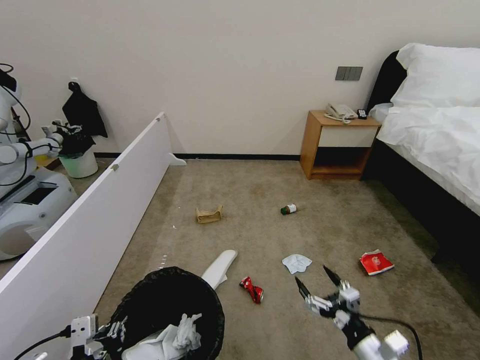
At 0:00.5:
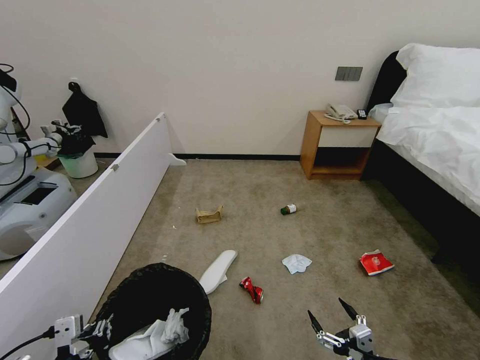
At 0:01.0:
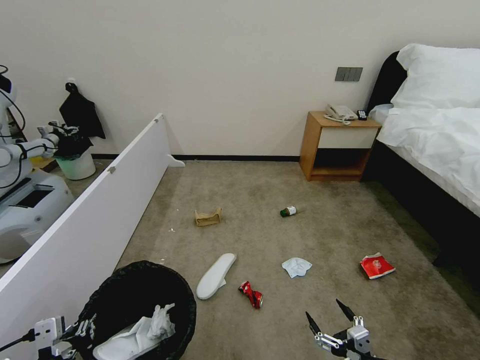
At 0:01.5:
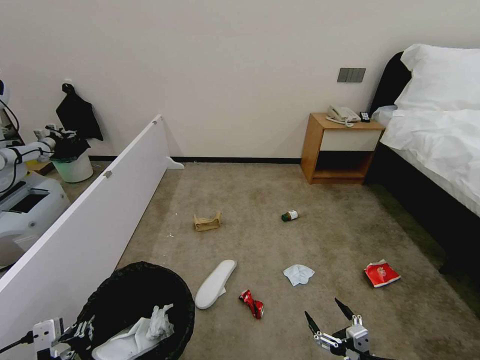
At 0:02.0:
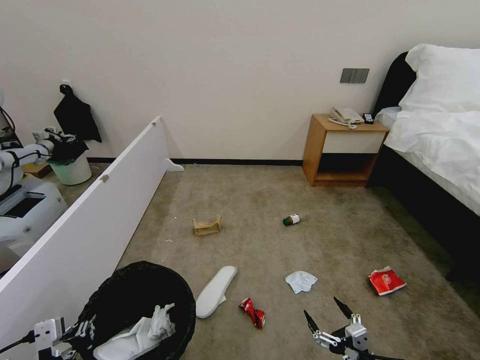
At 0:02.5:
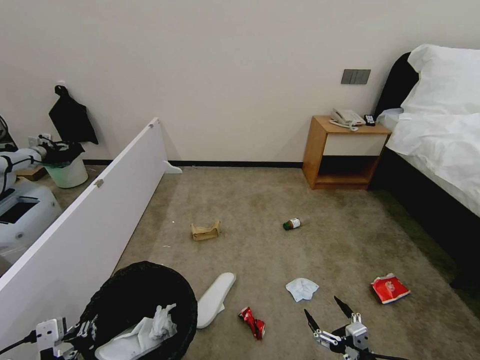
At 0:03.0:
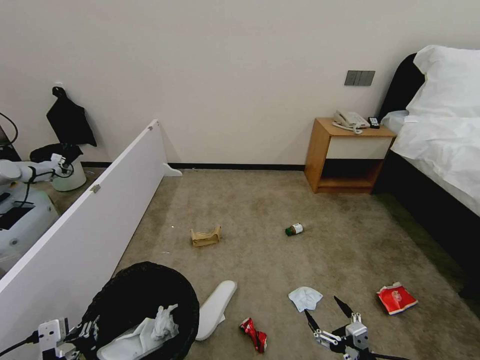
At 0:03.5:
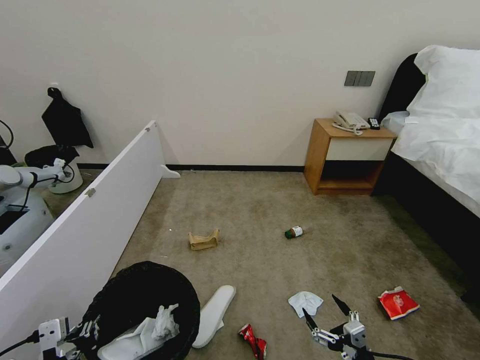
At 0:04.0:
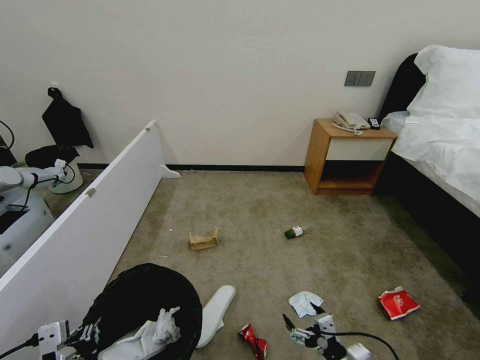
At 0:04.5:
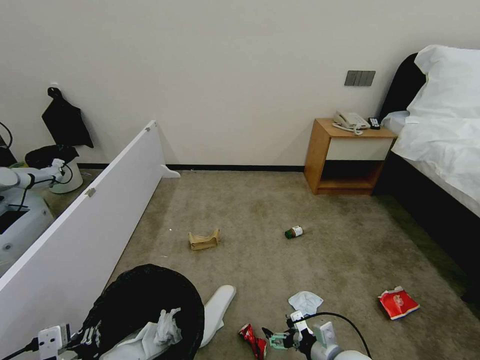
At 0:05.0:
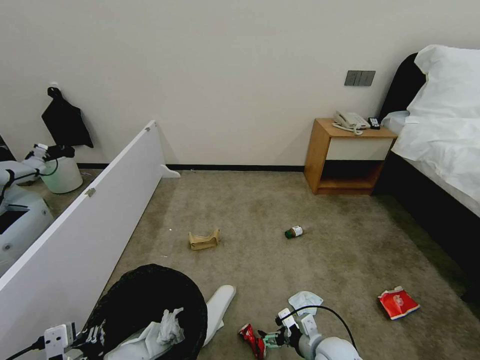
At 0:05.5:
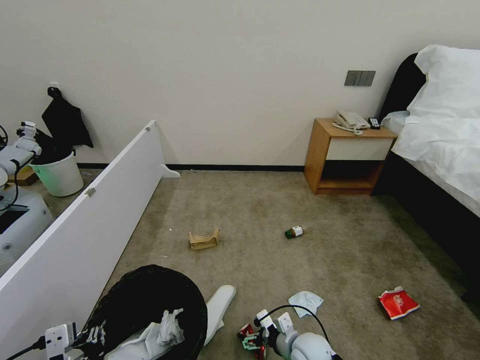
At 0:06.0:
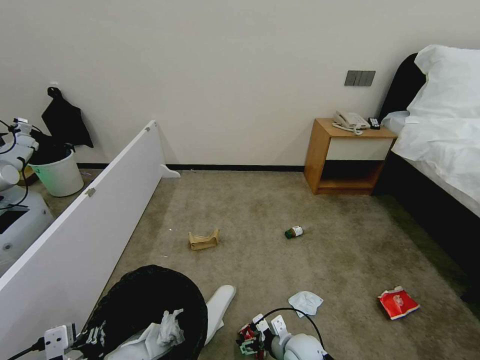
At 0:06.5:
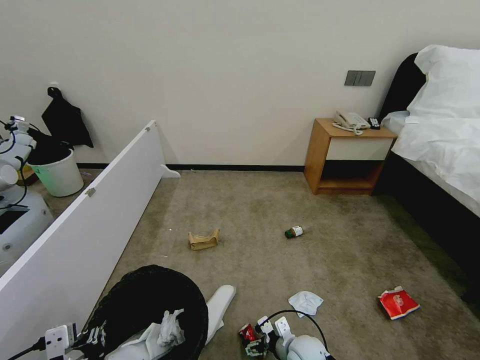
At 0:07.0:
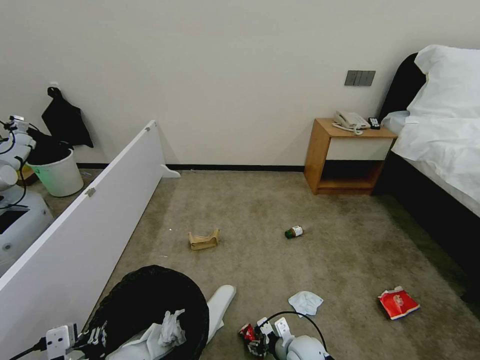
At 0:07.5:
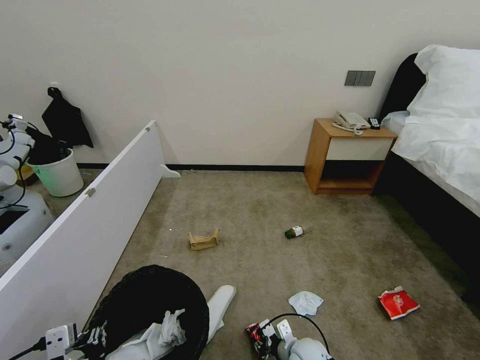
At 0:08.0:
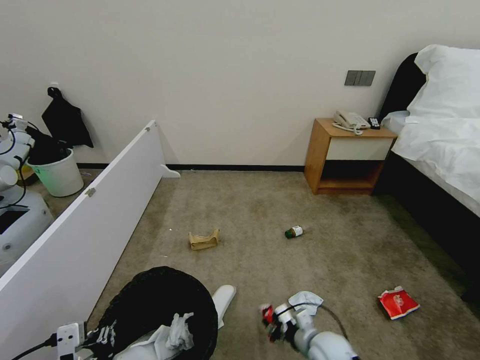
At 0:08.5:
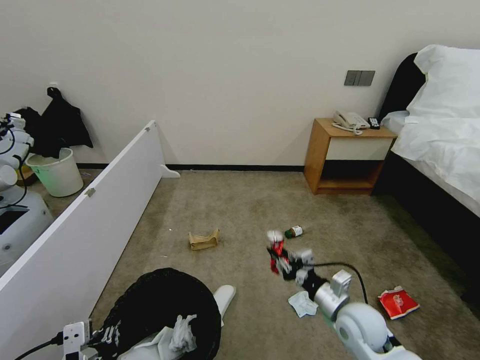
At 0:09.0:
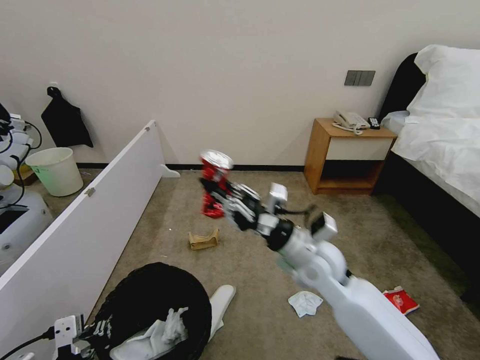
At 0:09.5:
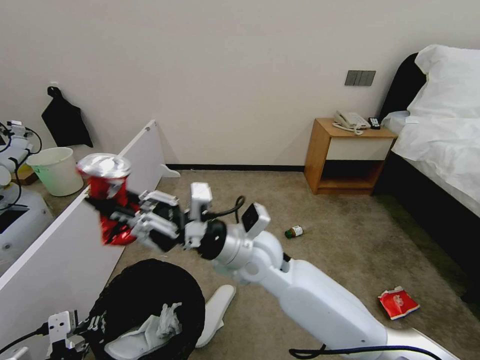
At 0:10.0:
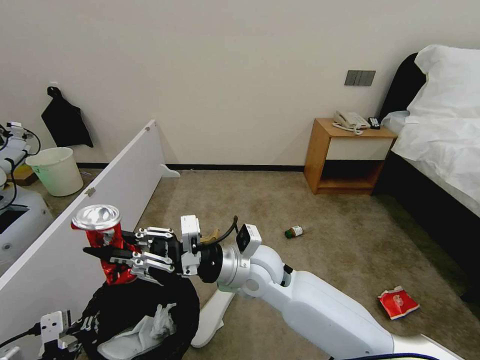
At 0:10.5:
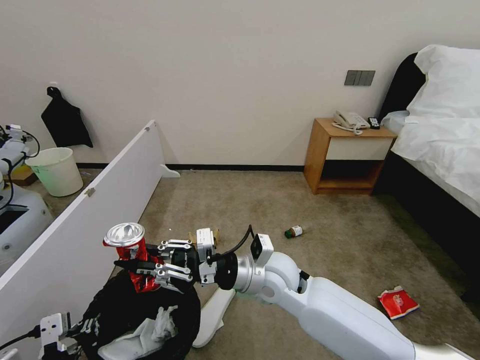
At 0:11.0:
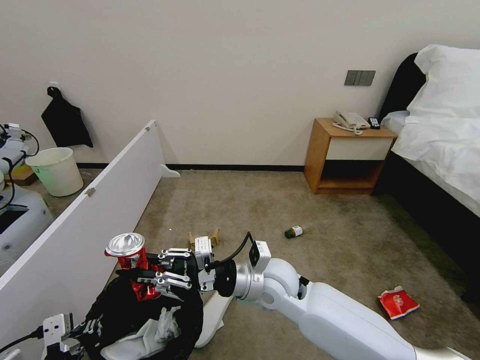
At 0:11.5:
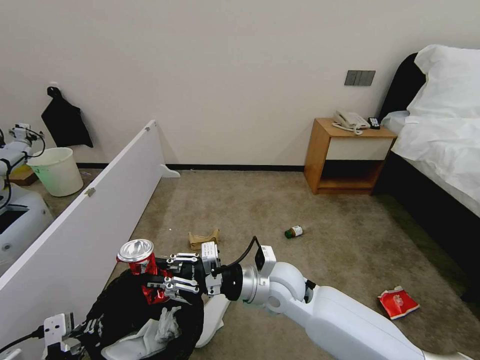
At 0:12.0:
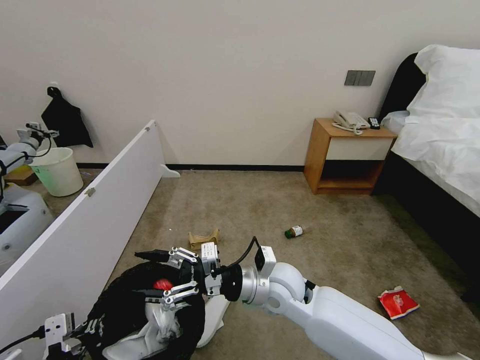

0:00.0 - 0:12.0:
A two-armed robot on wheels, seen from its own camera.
Task of the whole recording: Pick up the trash bin, then pick up the garbage from the floor and place it into the trash bin.
0:00.0 - 0:02.0: The right gripper moves about 5 cm.
0:02.0 - 0:04.0: The right gripper shifts by about 5 cm.
0:04.0 - 0:06.0: The right gripper heads forward, to the left and downward, covering some 20 cm.
0:06.0 - 0:08.0: The right gripper moves to the right, approximately 5 cm, and closes up.
0:08.0 - 0:10.0: The right gripper travels upward and to the left by approximately 35 cm.
0:10.0 - 0:12.0: The right gripper moves approximately 5 cm, and opens its fingers.

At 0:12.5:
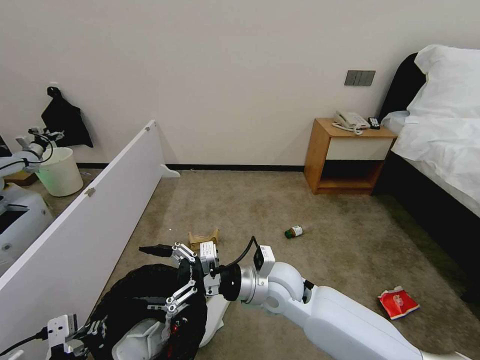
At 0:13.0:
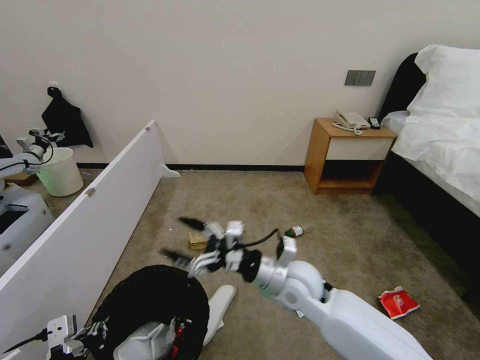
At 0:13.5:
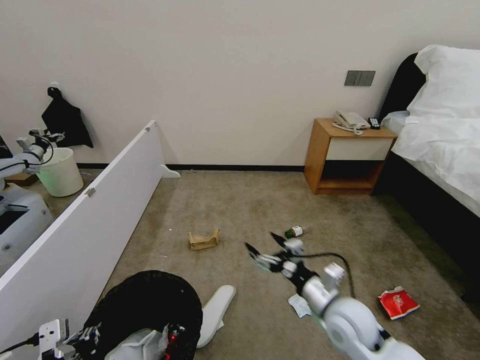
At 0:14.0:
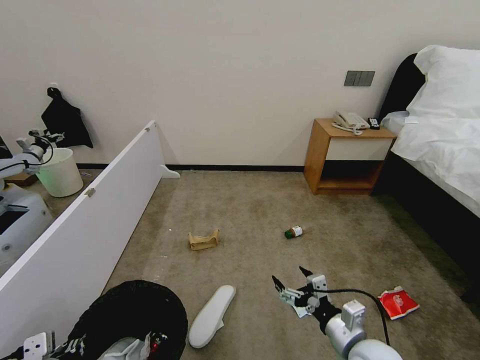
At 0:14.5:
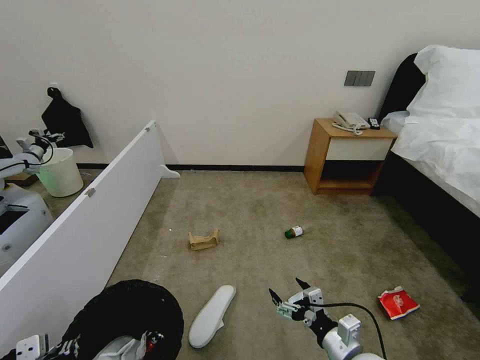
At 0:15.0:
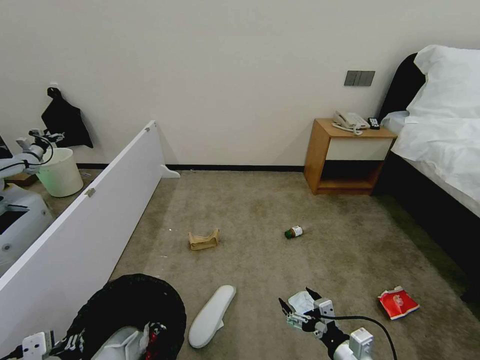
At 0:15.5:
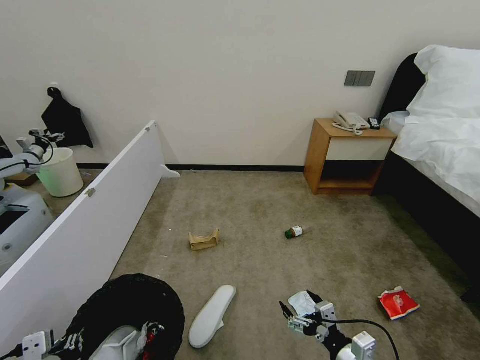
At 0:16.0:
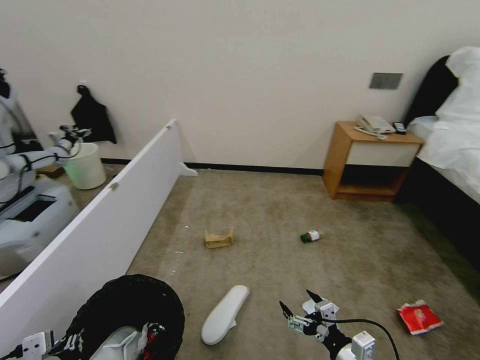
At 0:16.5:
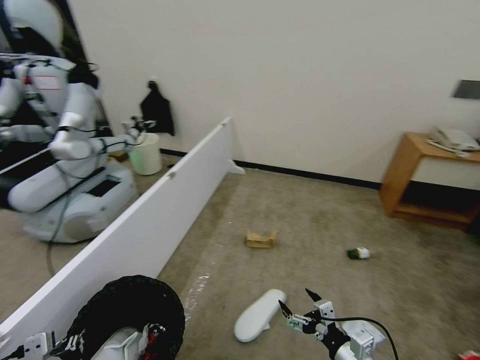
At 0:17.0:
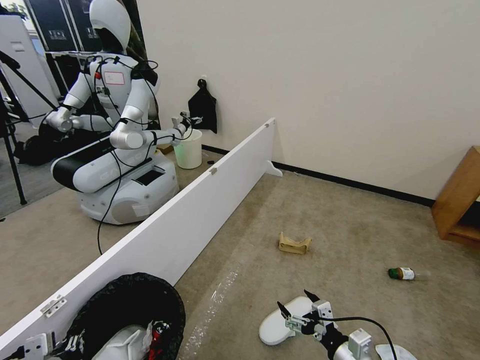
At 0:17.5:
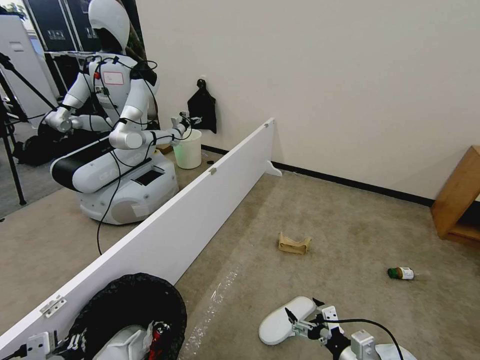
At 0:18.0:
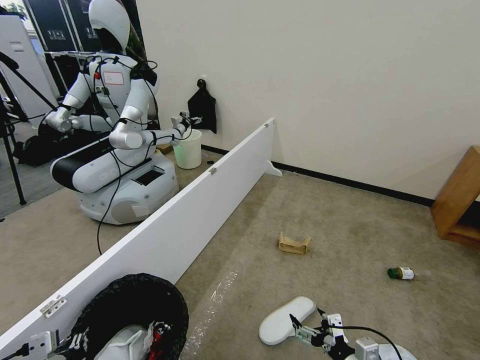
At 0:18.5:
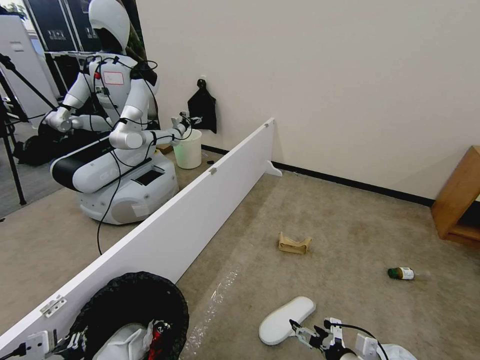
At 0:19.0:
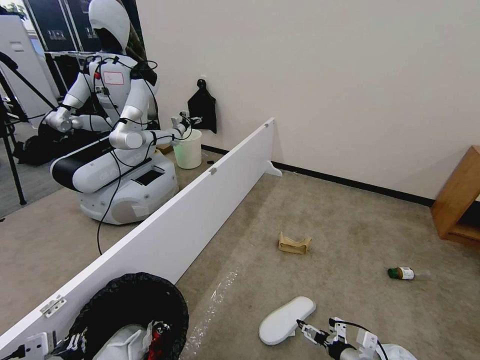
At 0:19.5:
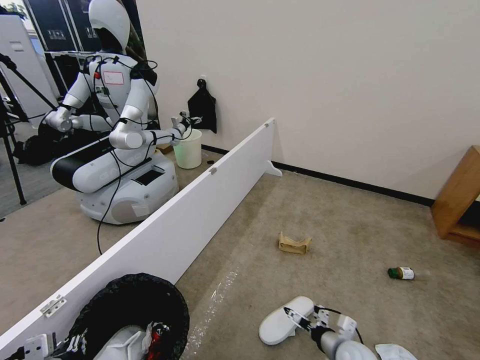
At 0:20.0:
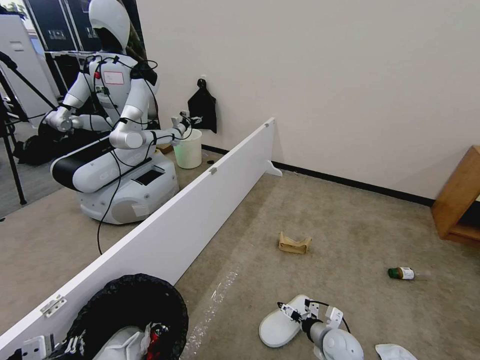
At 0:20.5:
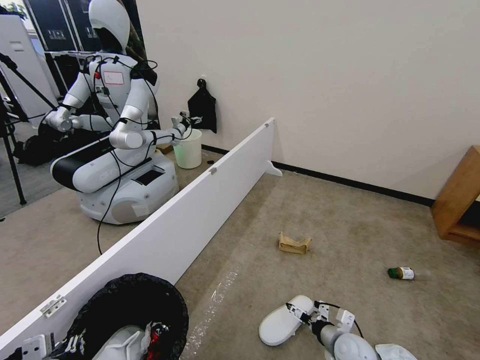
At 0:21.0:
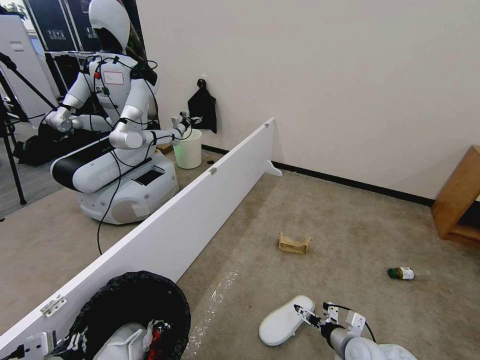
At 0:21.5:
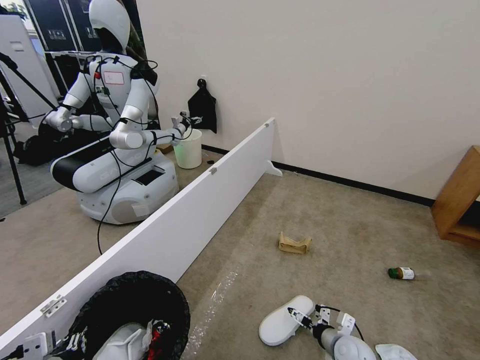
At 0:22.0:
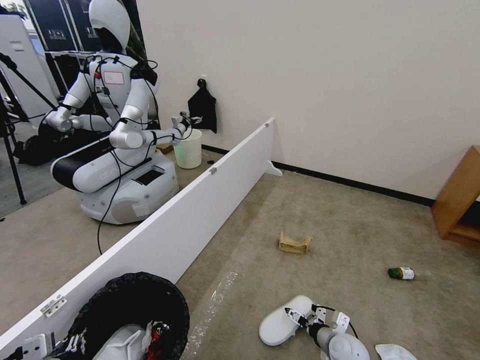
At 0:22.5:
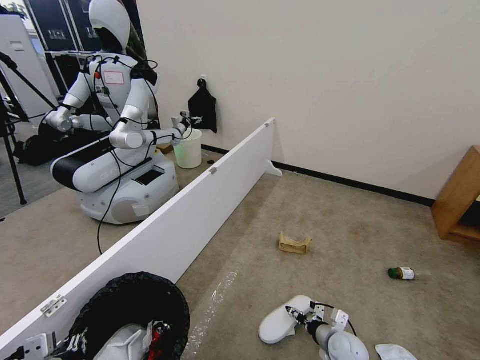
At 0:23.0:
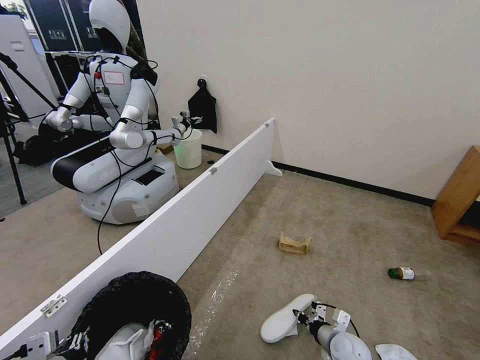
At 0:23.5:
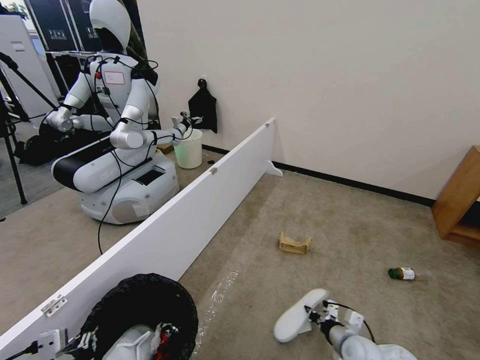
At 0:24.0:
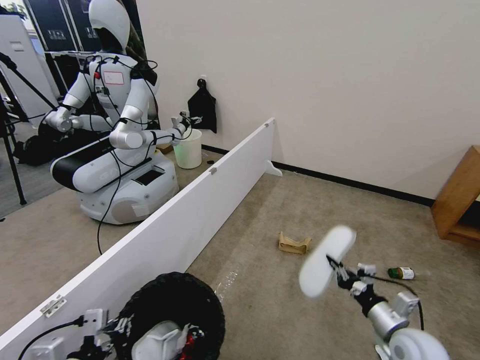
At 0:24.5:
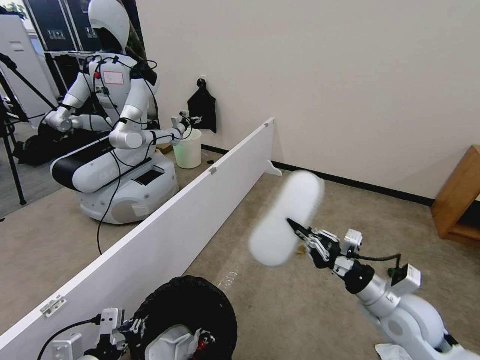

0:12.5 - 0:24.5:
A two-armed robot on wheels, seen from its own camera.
Task of the whole recording: Pick up the trash bin, then pick up the garbage from the floor and place it into the trash bin.
0:12.5 - 0:14.5: The right gripper is displaced to the right, backward and downward by roughly 25 cm.
0:18.5 - 0:20.5: The right gripper shifts about 15 cm forward and downward.
0:20.5 - 0:22.5: The right gripper closes.
0:22.5 - 0:24.5: The left gripper travels forward by roughly 5 cm, while the right gripper moves upward, some 25 cm, and closes its fingers.

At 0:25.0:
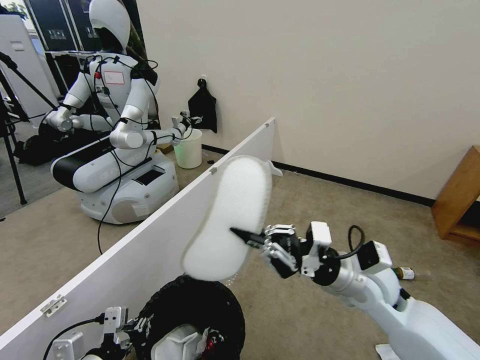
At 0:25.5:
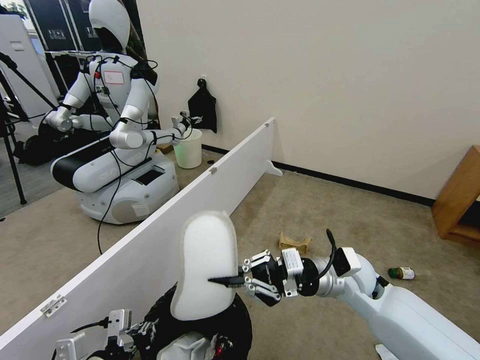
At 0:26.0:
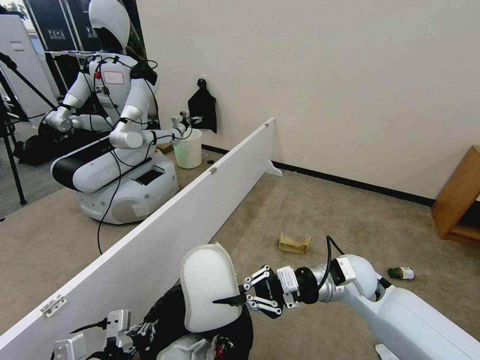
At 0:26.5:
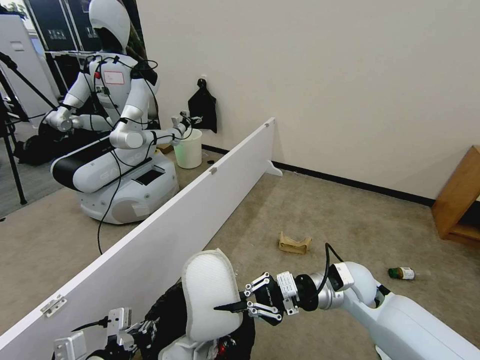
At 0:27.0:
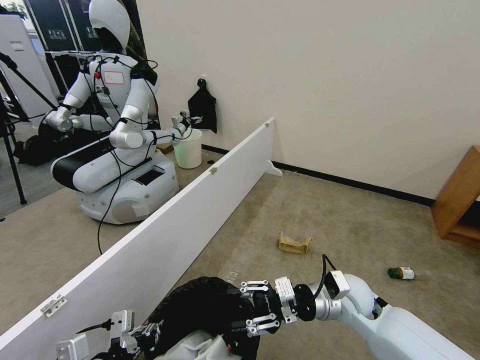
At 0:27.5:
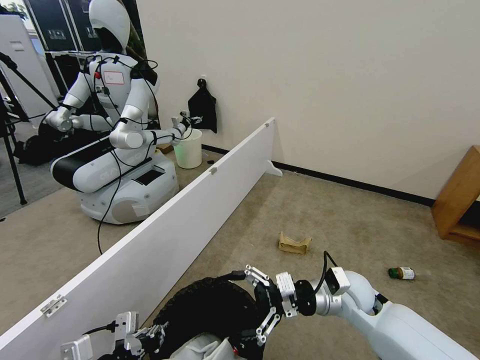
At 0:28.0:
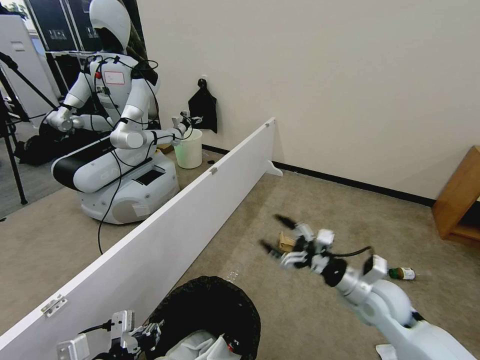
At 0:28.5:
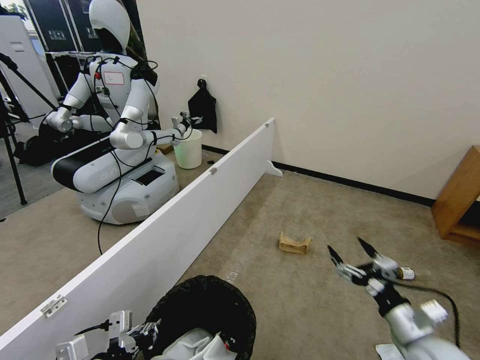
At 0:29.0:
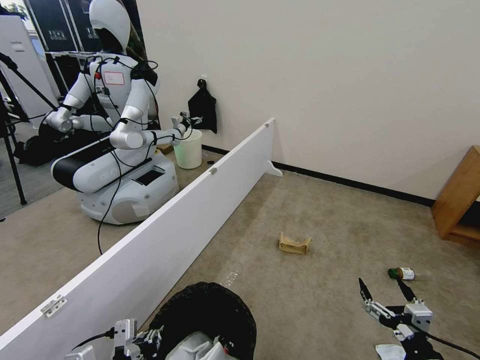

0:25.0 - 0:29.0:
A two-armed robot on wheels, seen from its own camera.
Task of the whole recording: Pick up the trash bin, then pick up the garbage from the floor and place it into the trash bin.
0:25.0 - 0:27.0: The right gripper is displaced downward by approximately 10 cm, and opens its fingers.
0:27.0 - 0:29.0: The right gripper is displaced backward and to the right by about 25 cm, and opens.
